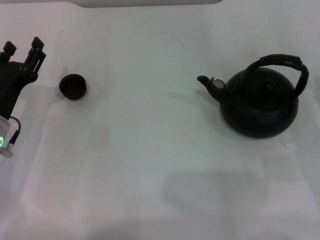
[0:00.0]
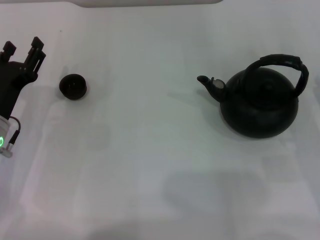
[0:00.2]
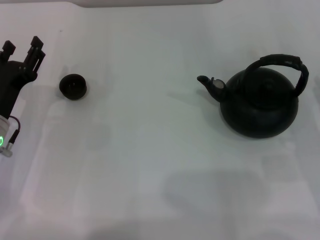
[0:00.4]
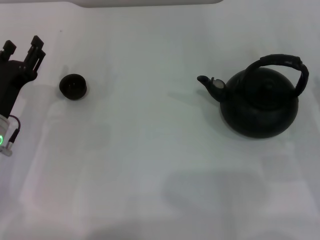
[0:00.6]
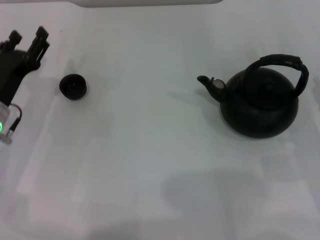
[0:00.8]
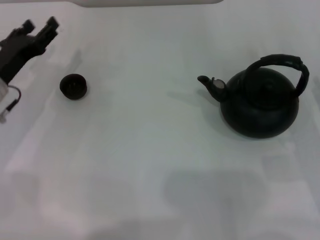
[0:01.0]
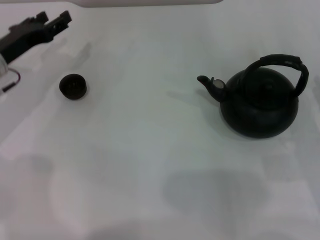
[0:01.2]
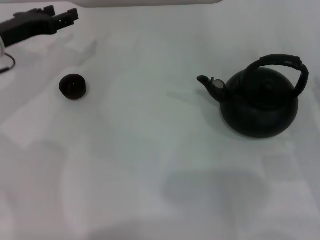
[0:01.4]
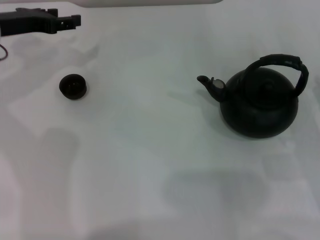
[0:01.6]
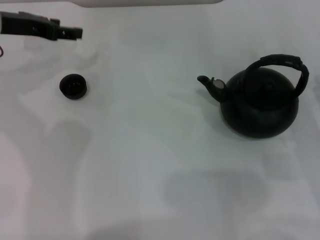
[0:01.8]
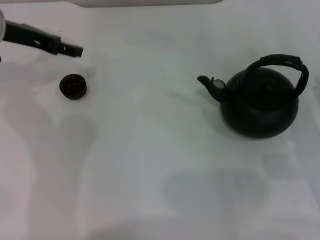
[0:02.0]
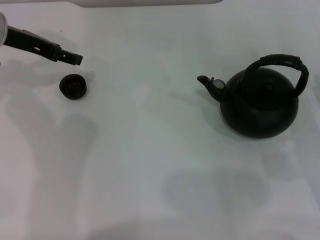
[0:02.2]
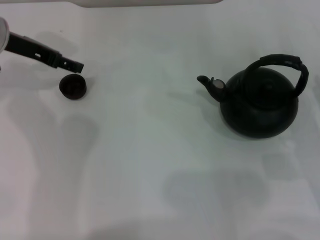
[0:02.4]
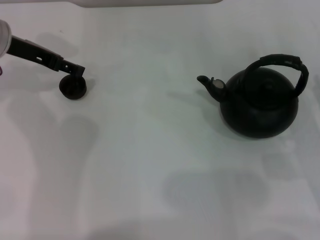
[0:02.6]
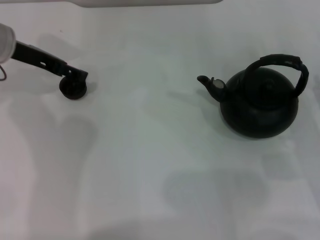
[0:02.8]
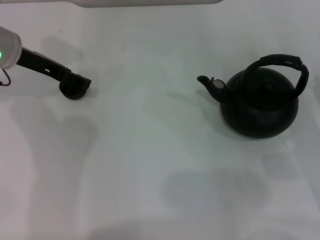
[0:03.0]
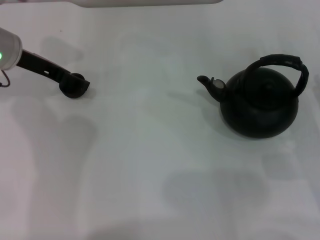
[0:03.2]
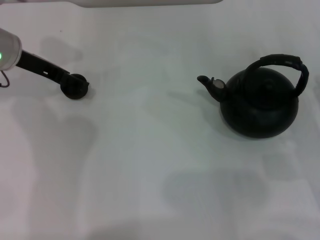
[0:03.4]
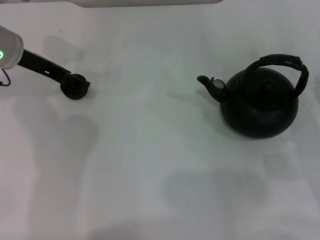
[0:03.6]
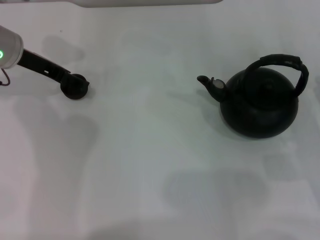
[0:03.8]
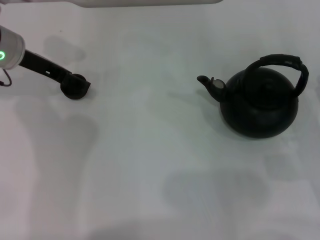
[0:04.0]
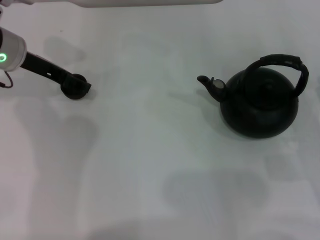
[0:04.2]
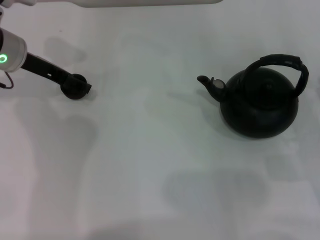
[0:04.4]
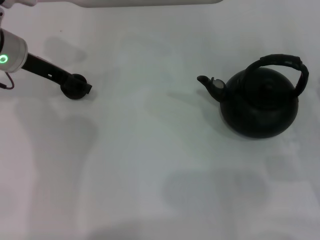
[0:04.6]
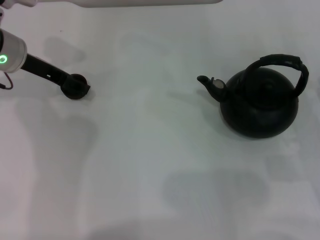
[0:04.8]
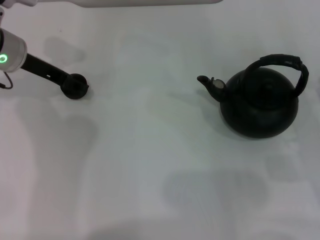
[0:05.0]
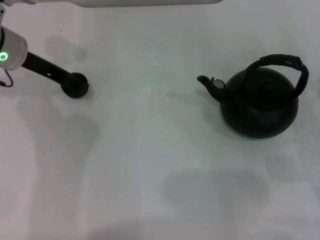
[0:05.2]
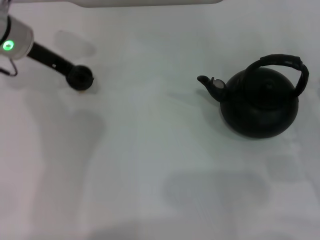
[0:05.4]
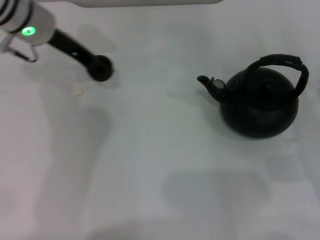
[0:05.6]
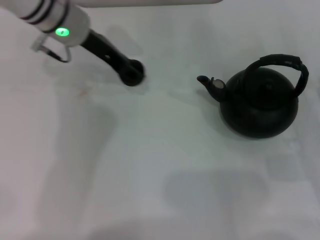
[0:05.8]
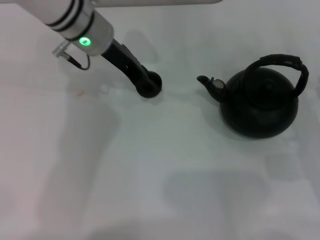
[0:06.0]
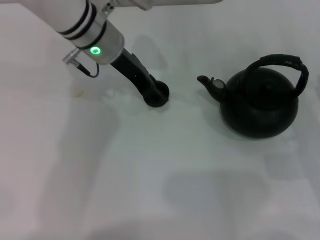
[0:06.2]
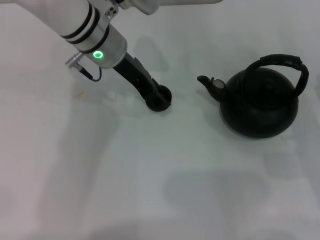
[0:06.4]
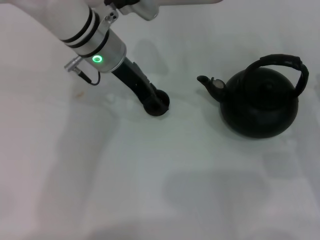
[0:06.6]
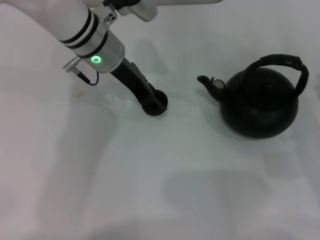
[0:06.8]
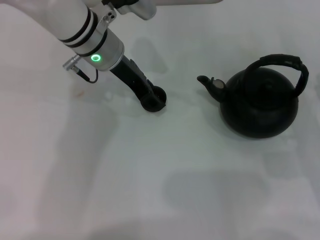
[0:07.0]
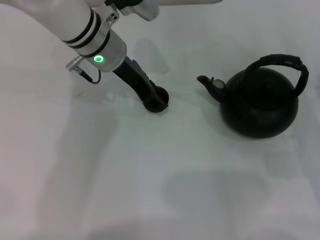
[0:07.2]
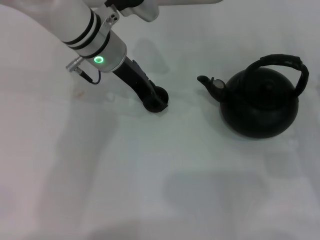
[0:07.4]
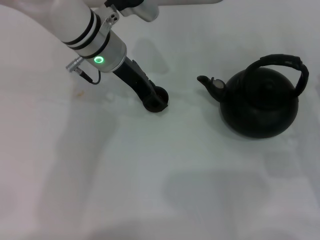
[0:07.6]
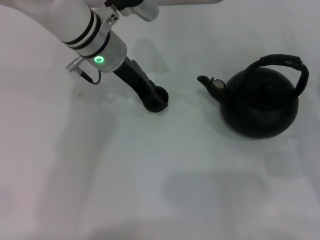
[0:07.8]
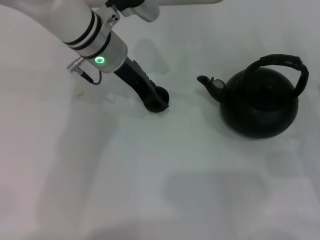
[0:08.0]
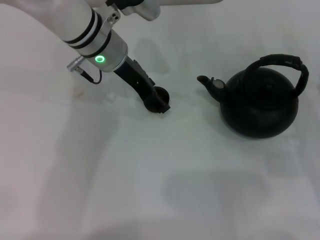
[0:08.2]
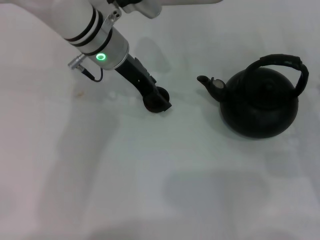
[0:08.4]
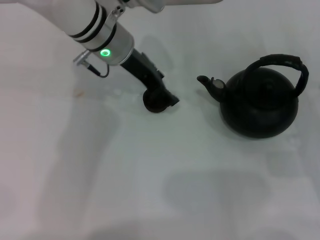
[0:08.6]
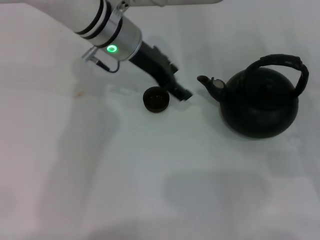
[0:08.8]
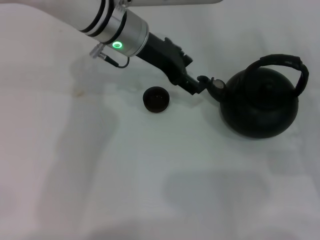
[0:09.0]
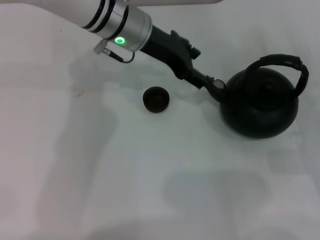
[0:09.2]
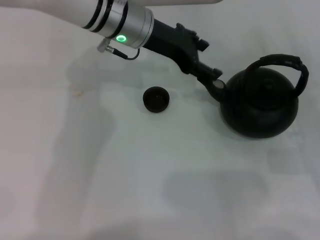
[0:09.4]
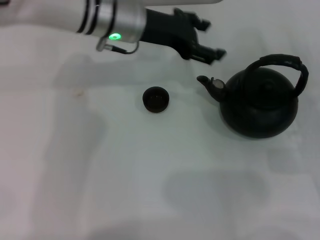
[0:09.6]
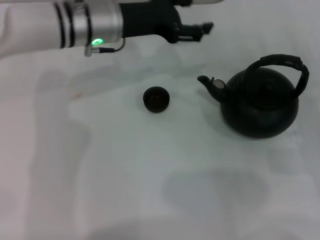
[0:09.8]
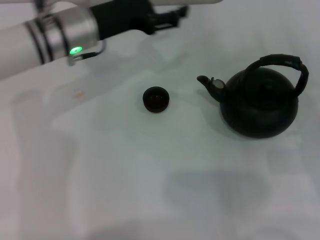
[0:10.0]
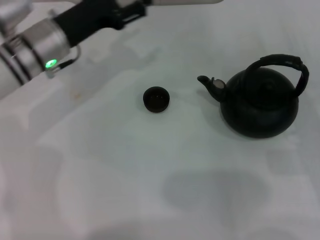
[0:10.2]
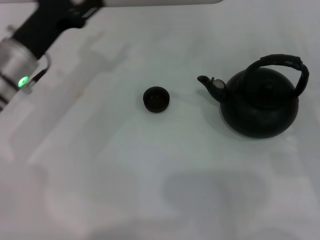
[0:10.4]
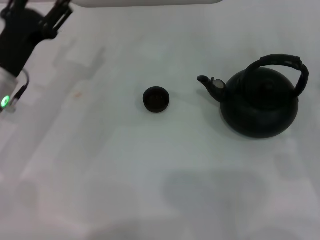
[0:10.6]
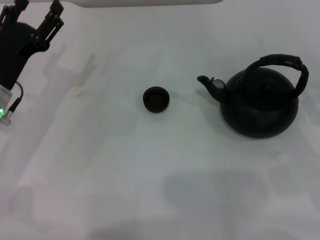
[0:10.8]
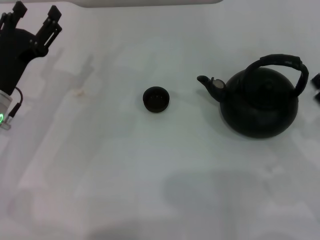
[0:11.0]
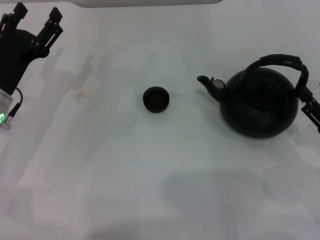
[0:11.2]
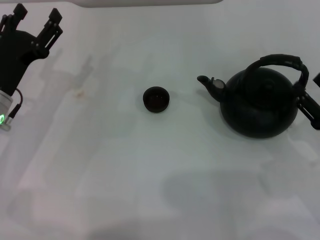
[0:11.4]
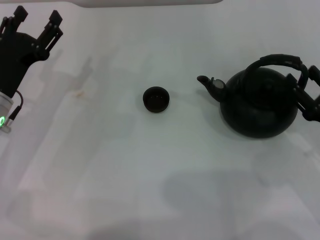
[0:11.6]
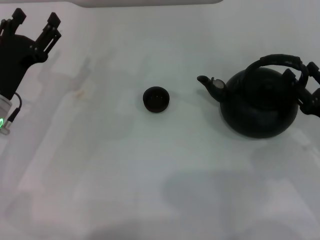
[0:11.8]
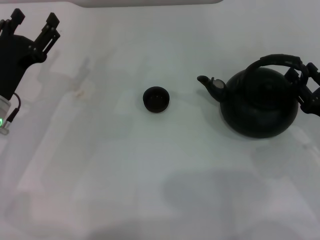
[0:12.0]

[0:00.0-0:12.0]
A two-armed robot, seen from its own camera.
Task of the whole recording: Grasp the handle of the teapot with one hand and pour tea into the teacup.
Step, 0:00.0 to 0:05.2: Pick up the teacup with the left gripper.
Step, 0:05.4 to 0:09.0: Place the teacup in the center of view with the left gripper.
0:00.0 to 0:01.6: The left gripper shifts some 20 cm forward and upward.
0:01.6 to 0:03.0: The left gripper opens up.
0:03.0 to 0:04.4: The two grippers keep their place.
0:04.4 to 0:06.0: The left gripper goes roughly 15 cm to the right, and closes.
0:06.0 to 0:07.6: The grippers move only a little.
0:07.6 to 0:09.0: The left gripper opens its fingers.
0:09.0 to 0:10.4: The left gripper travels to the left, backward and downward by about 20 cm.
0:10.4 to 0:12.0: The left gripper shifts approximately 5 cm backward.

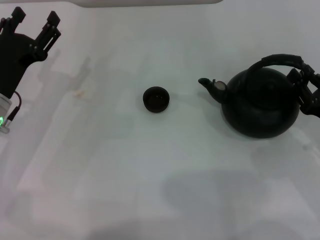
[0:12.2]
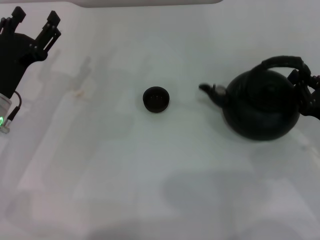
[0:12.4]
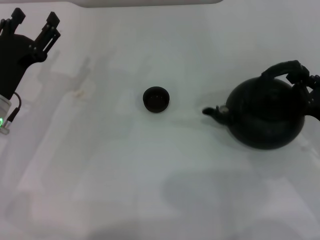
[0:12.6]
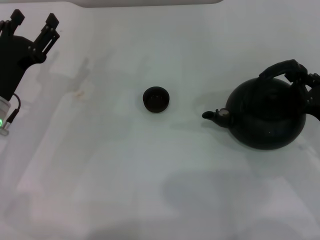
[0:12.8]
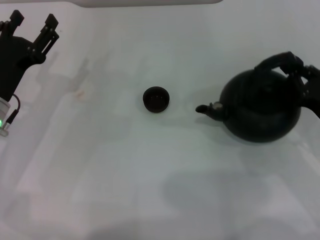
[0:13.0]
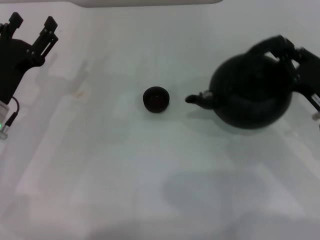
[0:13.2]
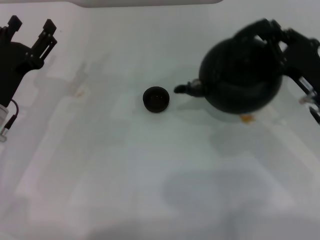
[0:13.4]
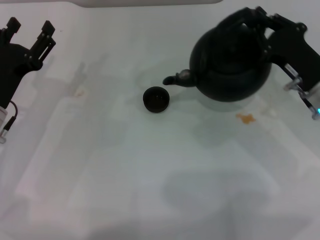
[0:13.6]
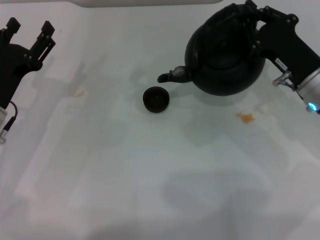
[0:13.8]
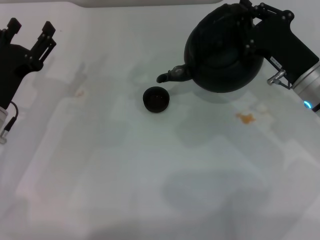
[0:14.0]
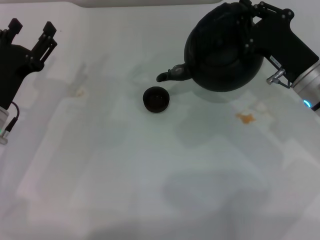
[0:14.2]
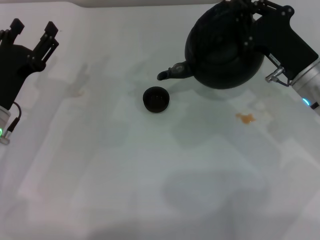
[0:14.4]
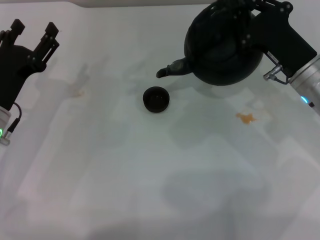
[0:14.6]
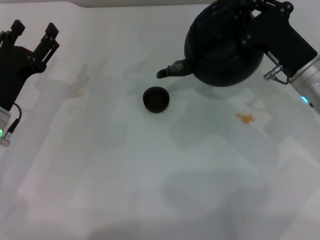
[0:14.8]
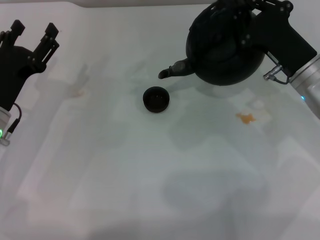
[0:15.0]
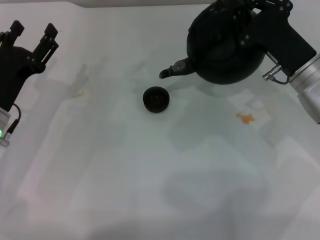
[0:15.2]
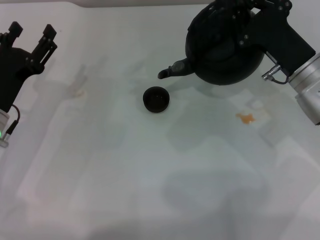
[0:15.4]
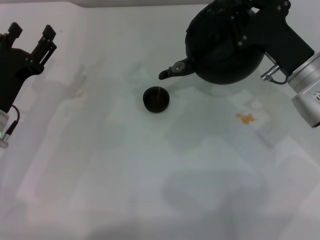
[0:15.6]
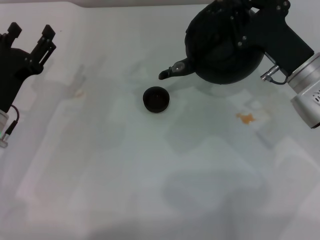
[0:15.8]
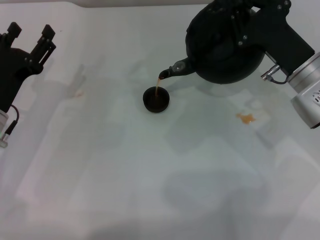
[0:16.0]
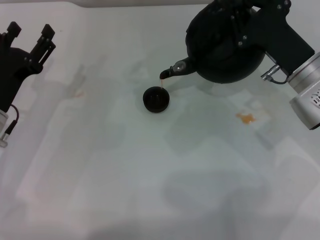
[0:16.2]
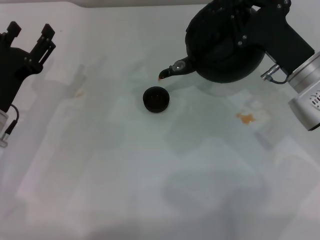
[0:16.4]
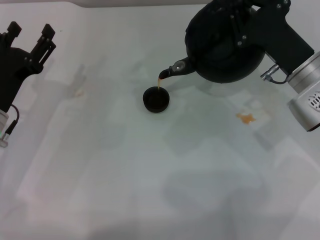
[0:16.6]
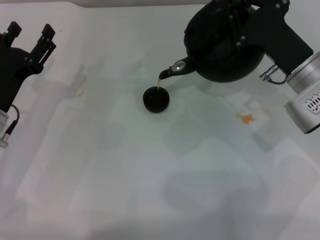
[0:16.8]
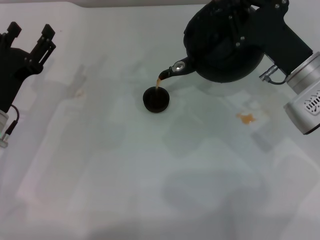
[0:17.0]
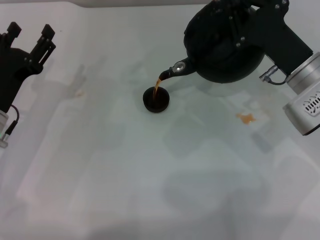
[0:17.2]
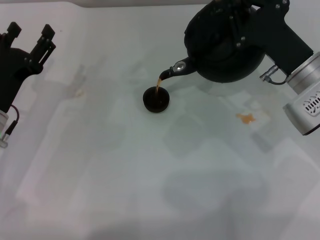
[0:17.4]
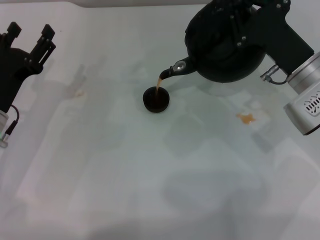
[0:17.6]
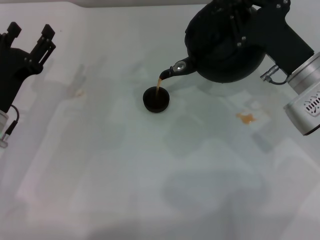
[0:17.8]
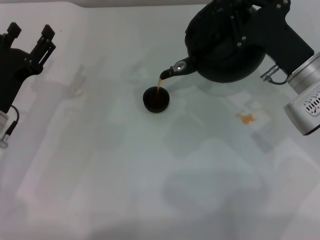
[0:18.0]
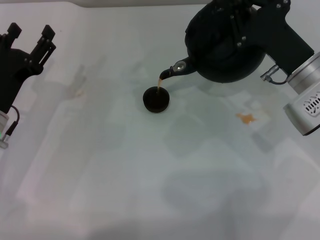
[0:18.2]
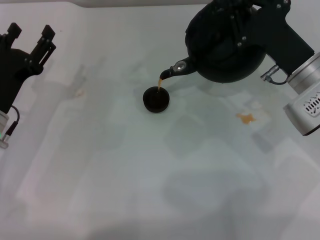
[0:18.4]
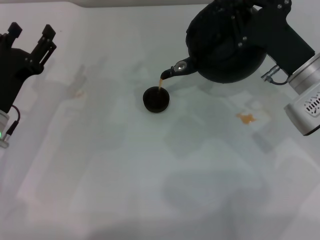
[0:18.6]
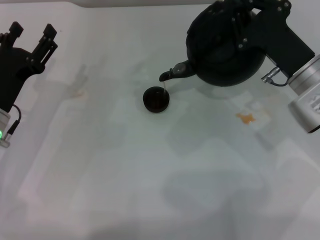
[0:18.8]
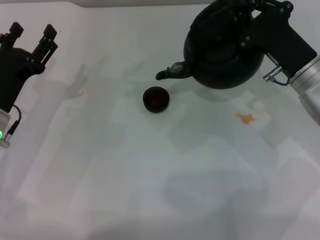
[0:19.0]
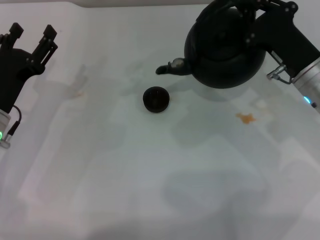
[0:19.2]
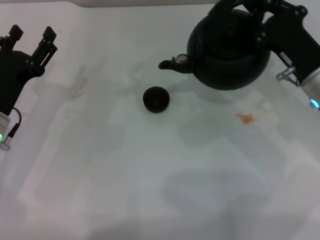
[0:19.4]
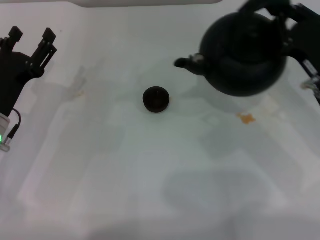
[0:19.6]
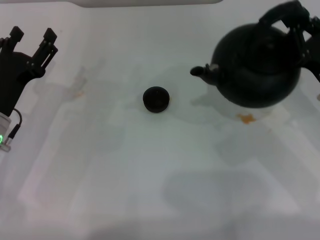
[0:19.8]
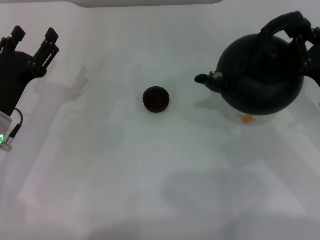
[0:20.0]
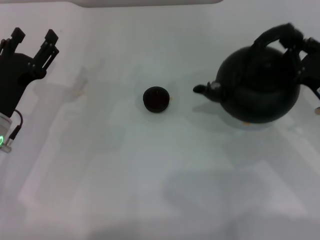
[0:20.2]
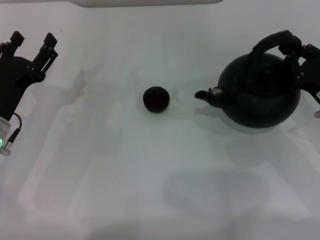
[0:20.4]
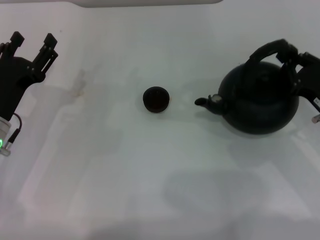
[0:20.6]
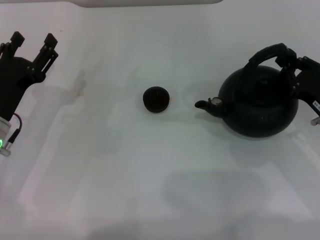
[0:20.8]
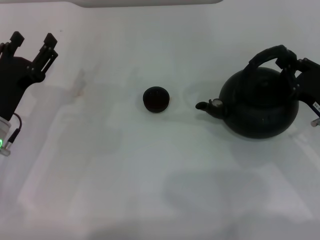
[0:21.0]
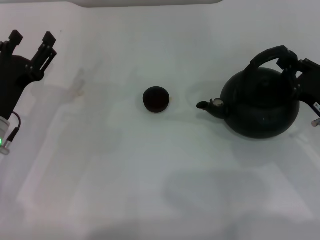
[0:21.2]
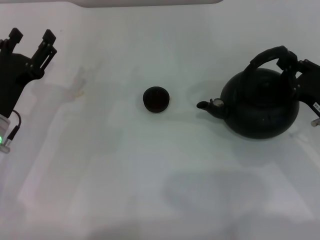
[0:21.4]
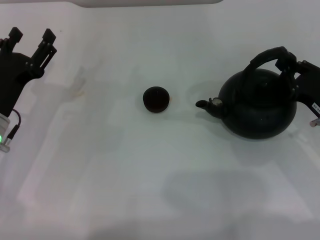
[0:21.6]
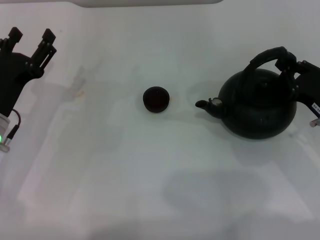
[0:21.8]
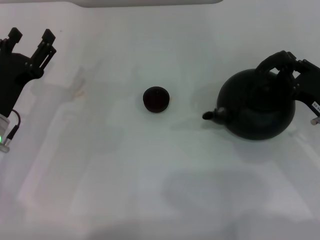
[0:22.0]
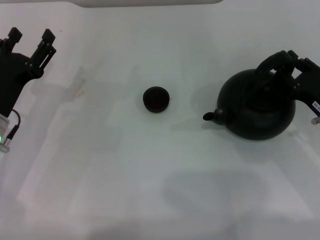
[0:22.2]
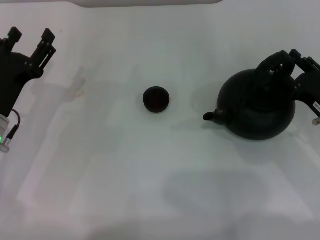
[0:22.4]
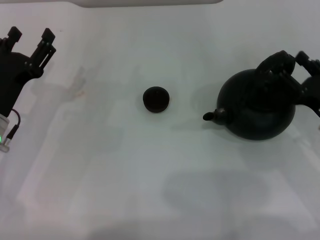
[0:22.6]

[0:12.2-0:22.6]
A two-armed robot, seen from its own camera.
Task of the whole recording: Grasp the handle of the teapot with one hand and pour tea into the teacup.
Step, 0:13.4 to 0:19.2: Pour tea into the teacup with the right gripper.
0:12.2 to 0:13.6: The right gripper shifts about 10 cm forward and to the left, and closes up.
0:15.2 to 0:16.6: There are only small adjustments of the grippers.
0:16.6 to 0:18.2: The two grippers keep their place.
0:18.2 to 0:19.6: The right gripper changes place by roughly 5 cm.
0:19.6 to 0:21.2: The right gripper moves approximately 5 cm.
0:21.2 to 0:22.6: The right gripper opens.
